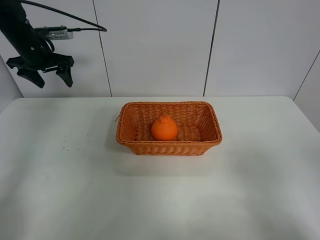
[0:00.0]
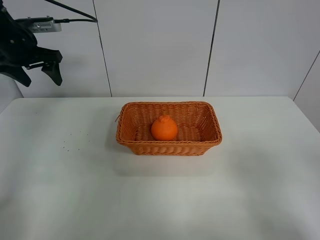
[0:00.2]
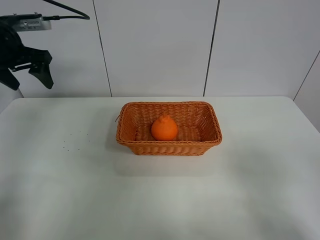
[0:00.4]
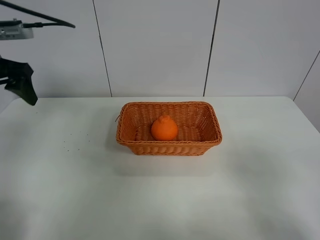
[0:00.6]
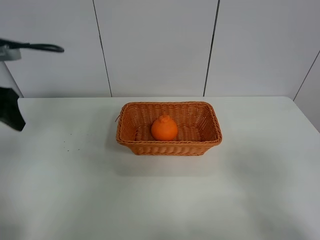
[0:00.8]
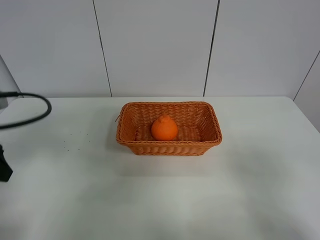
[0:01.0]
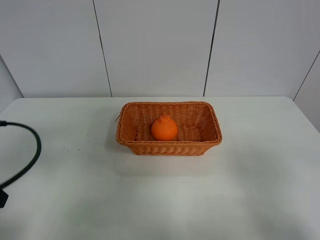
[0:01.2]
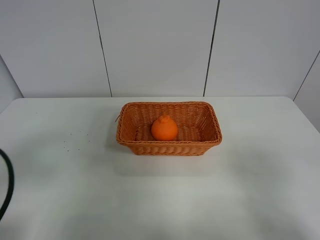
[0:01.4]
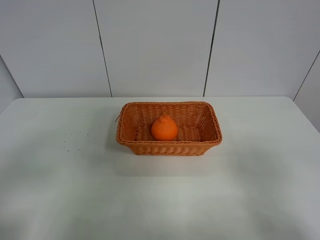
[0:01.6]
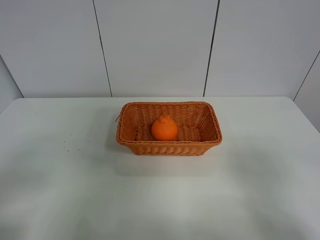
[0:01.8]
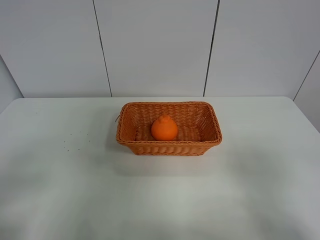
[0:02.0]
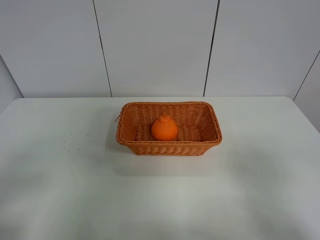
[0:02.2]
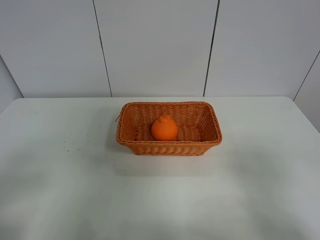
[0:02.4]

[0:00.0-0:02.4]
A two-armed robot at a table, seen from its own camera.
Task of the whole recording: left gripper grabs oranges and puts them in the basket.
0:00.0 to 0:01.2: The left gripper is displaced backward by approximately 35 cm.
0:01.2 to 0:02.4: The left gripper goes approximately 10 cm backward.
